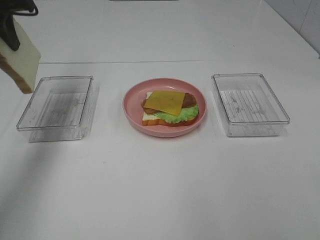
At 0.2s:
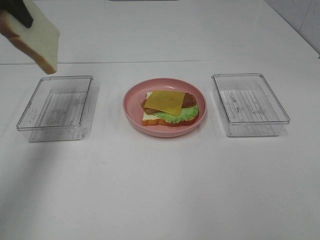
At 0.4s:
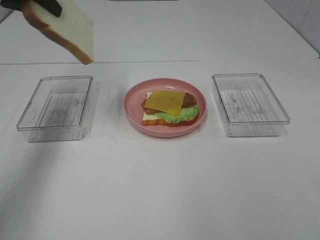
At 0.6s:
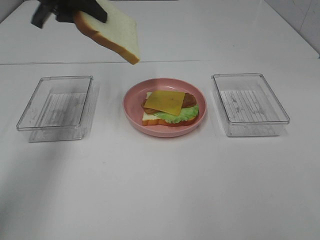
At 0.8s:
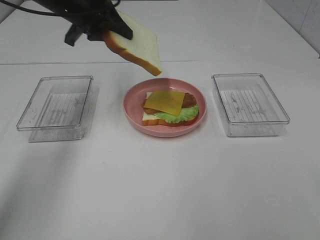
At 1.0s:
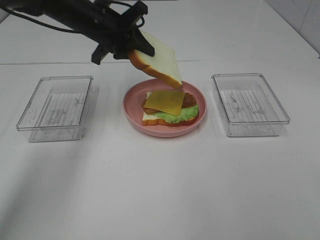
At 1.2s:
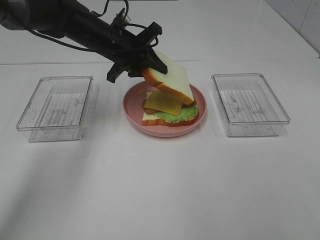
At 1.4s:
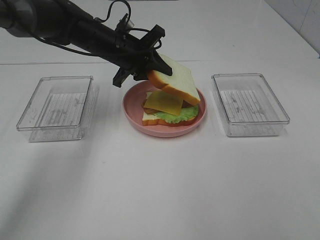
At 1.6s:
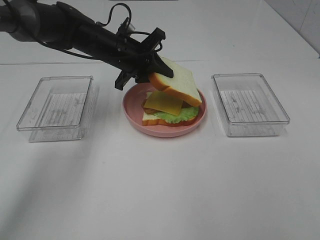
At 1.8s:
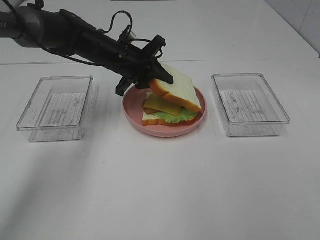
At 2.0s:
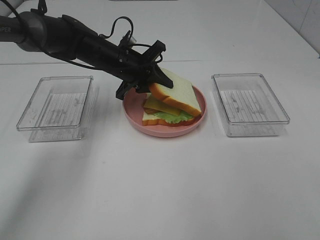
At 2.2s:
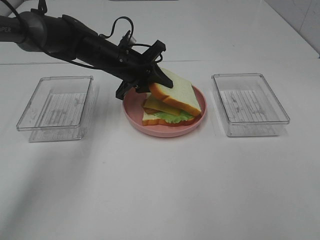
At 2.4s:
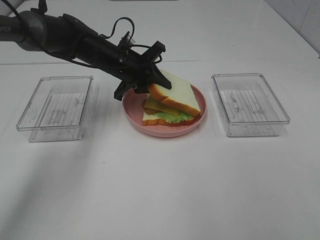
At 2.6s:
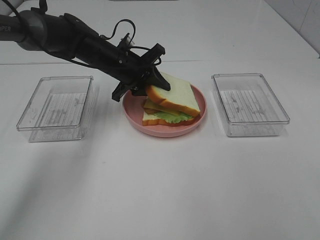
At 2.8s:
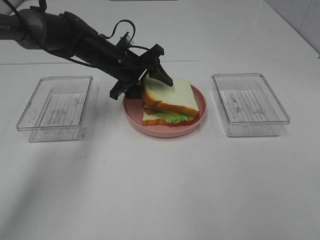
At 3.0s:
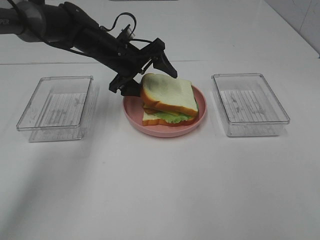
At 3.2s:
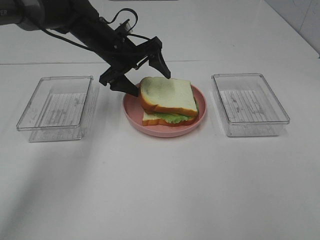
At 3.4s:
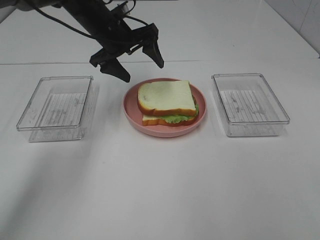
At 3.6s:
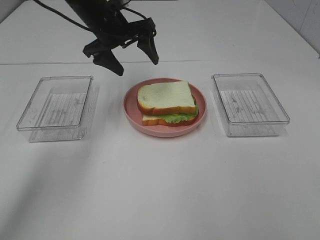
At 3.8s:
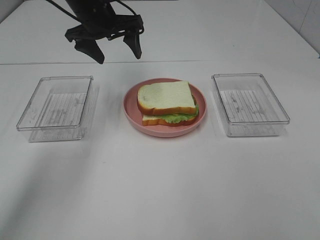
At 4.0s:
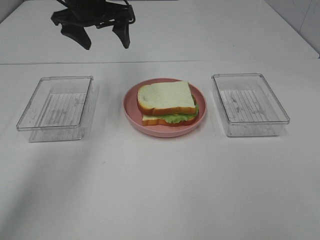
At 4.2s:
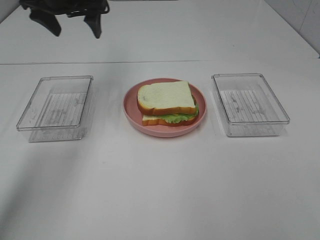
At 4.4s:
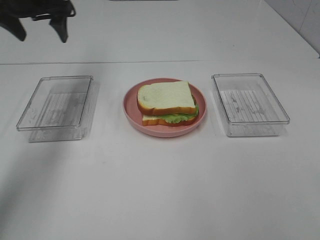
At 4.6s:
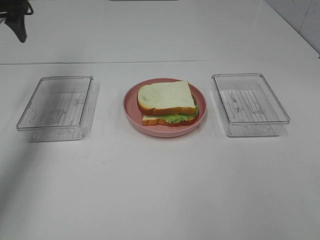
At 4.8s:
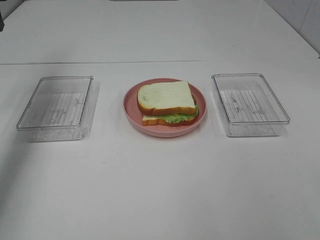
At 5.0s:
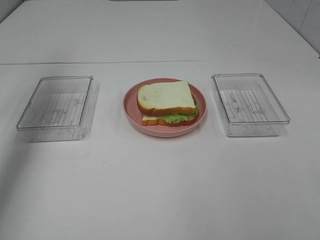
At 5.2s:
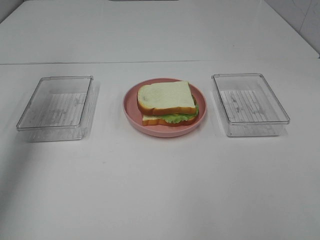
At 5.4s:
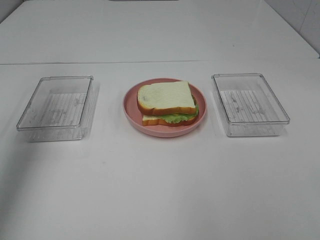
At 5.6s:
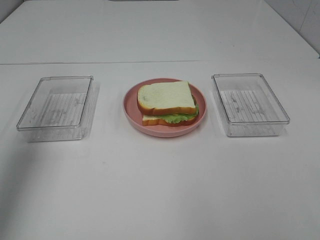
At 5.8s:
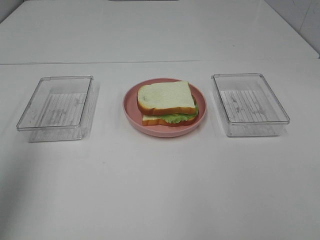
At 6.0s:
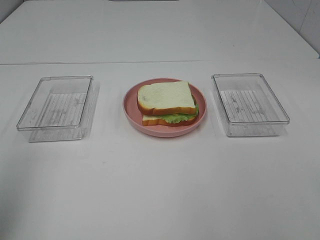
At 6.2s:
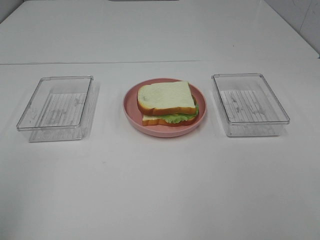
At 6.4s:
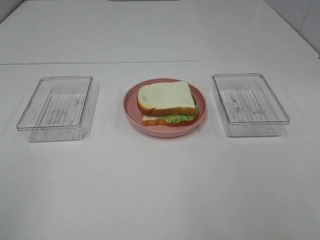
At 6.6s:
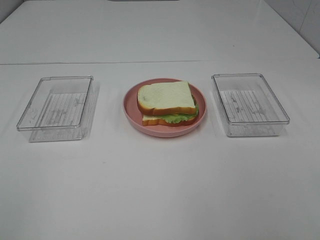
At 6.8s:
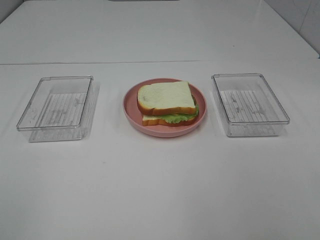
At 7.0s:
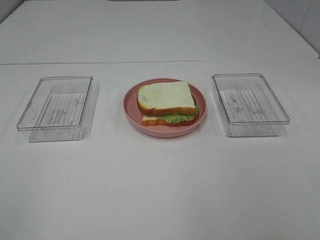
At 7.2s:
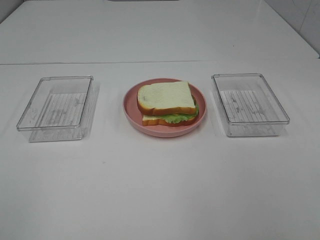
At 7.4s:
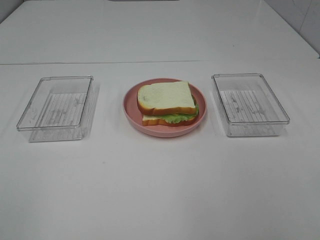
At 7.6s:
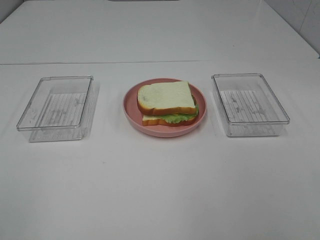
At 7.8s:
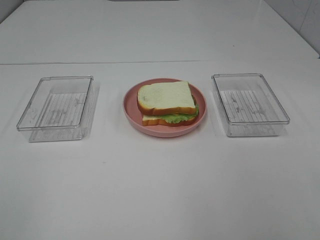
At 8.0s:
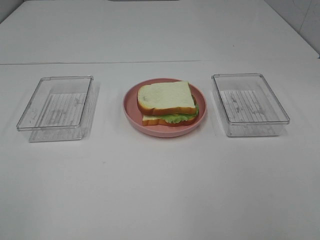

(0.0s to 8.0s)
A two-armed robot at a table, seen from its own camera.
Task of the whole recording: Make sandwiches.
Step, 0.0s - 3.2s: Left hand:place the bread slice on the cheese slice.
0.0s - 1.6s: The left gripper is displaced to the right and downward by some 25 cm.
1.6s - 3.2s: The left gripper opens up.
3.2s - 4.8s: The left gripper is displaced to the left and upward by approximately 30 cm.
4.8s - 6.4s: The left gripper goes some 40 cm backward.

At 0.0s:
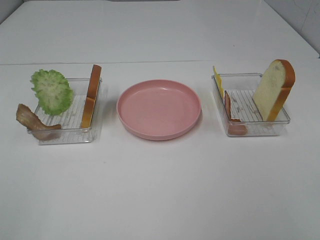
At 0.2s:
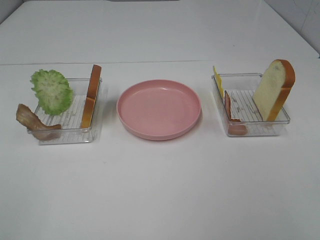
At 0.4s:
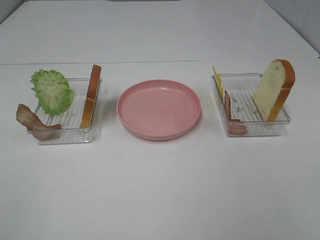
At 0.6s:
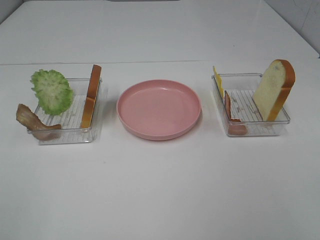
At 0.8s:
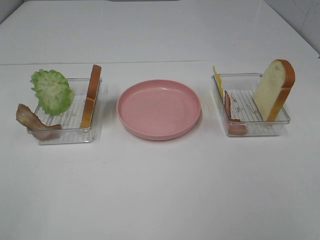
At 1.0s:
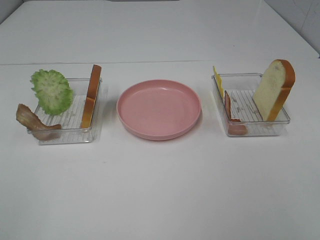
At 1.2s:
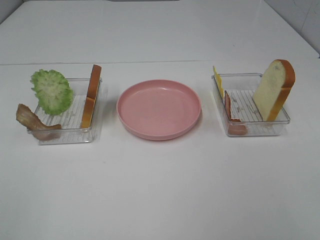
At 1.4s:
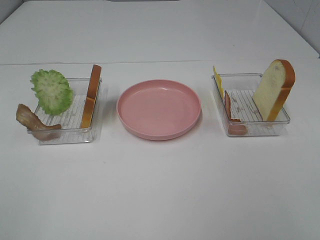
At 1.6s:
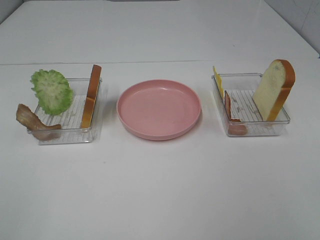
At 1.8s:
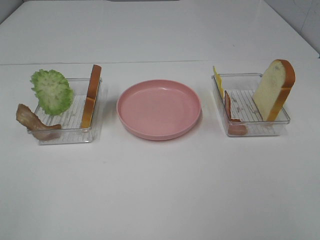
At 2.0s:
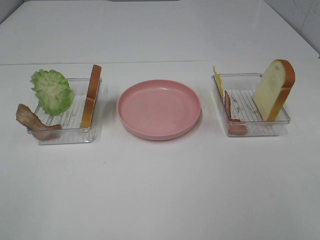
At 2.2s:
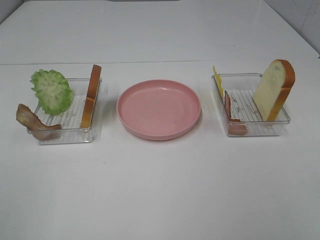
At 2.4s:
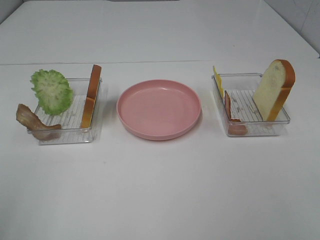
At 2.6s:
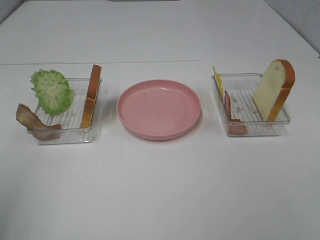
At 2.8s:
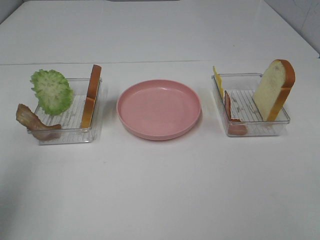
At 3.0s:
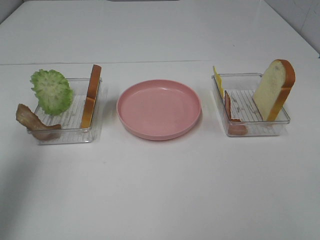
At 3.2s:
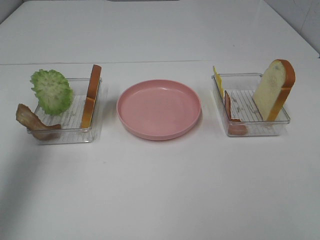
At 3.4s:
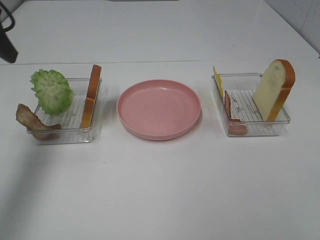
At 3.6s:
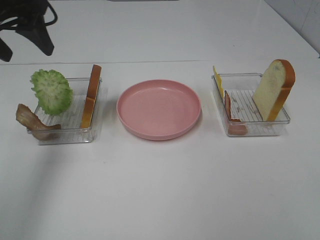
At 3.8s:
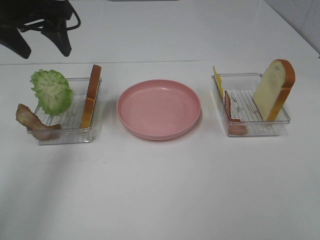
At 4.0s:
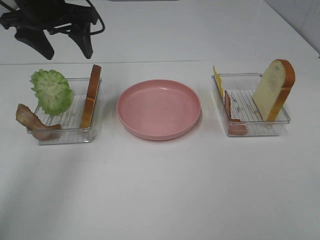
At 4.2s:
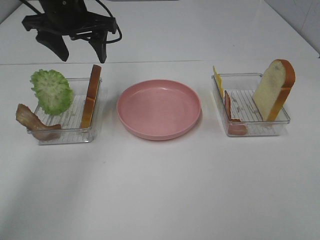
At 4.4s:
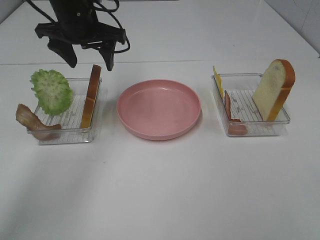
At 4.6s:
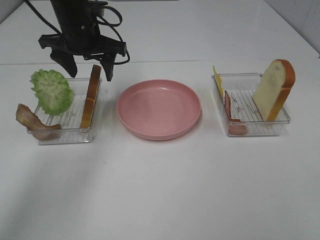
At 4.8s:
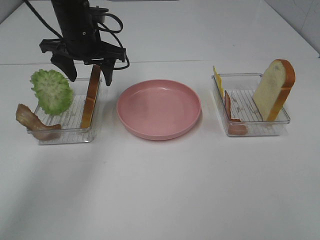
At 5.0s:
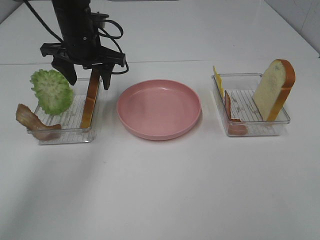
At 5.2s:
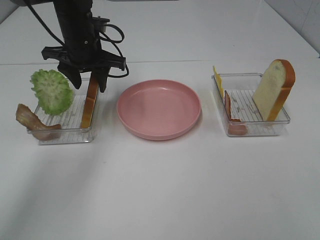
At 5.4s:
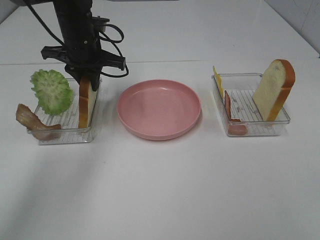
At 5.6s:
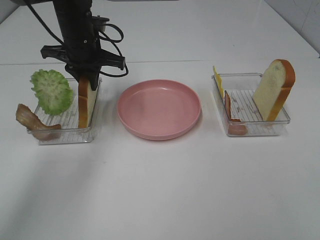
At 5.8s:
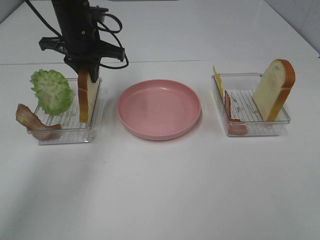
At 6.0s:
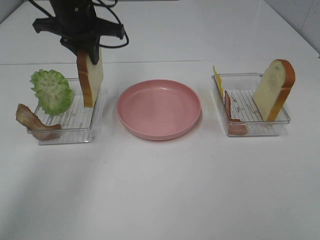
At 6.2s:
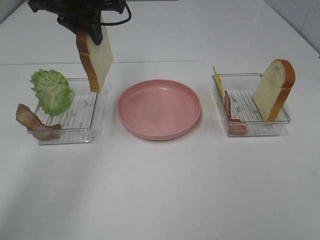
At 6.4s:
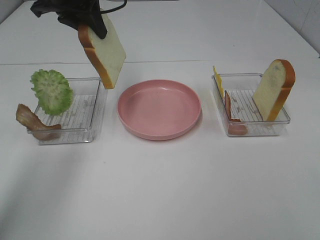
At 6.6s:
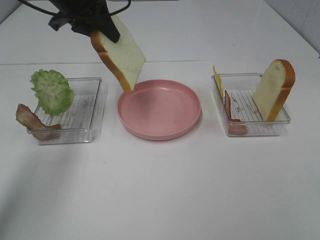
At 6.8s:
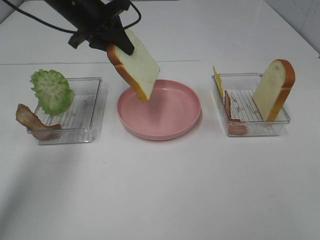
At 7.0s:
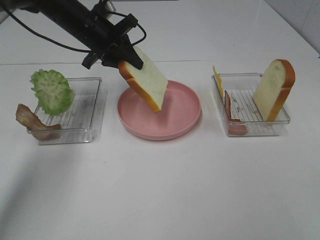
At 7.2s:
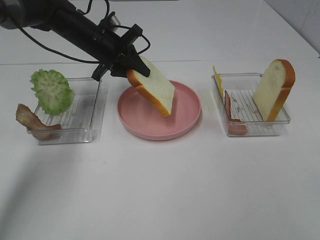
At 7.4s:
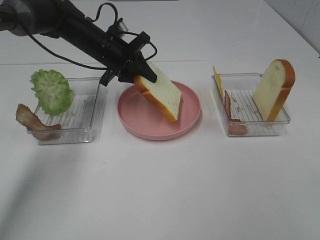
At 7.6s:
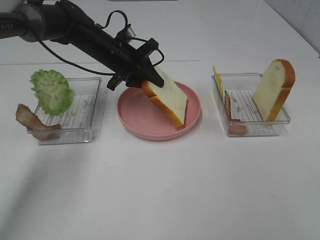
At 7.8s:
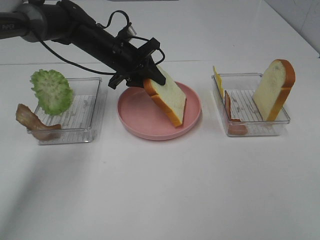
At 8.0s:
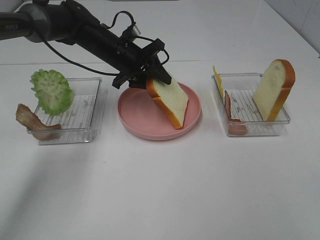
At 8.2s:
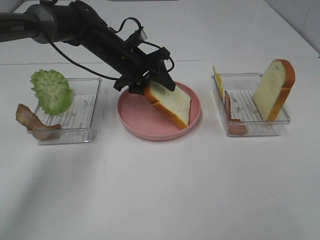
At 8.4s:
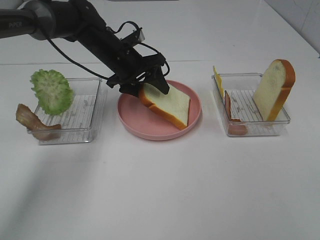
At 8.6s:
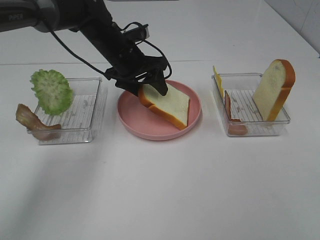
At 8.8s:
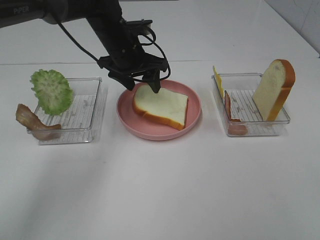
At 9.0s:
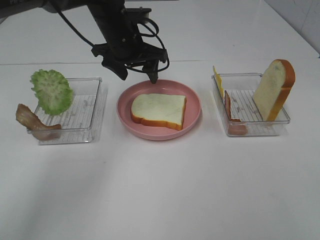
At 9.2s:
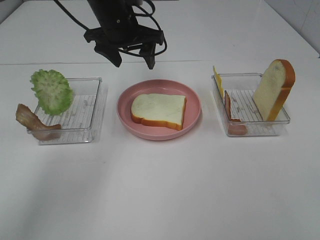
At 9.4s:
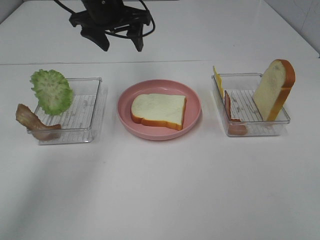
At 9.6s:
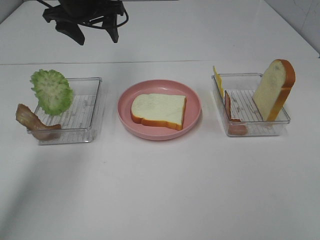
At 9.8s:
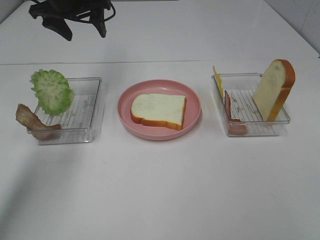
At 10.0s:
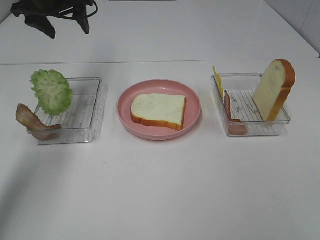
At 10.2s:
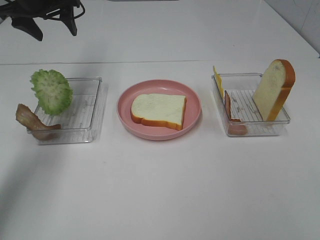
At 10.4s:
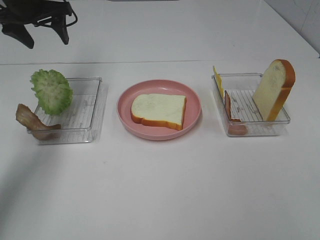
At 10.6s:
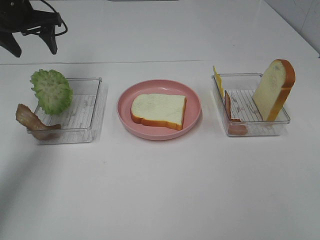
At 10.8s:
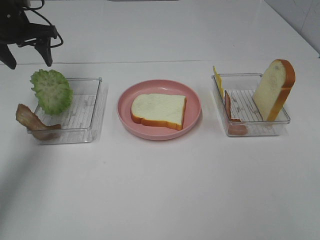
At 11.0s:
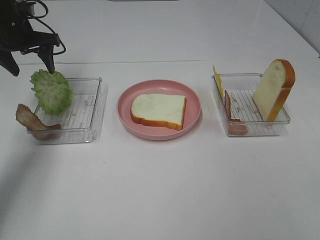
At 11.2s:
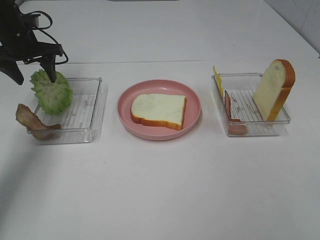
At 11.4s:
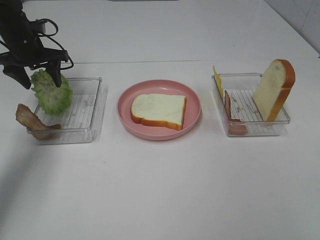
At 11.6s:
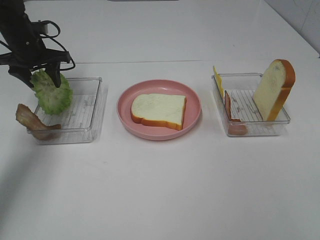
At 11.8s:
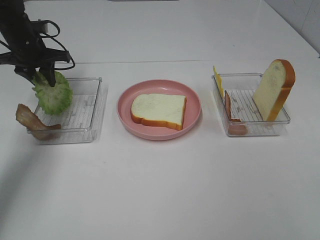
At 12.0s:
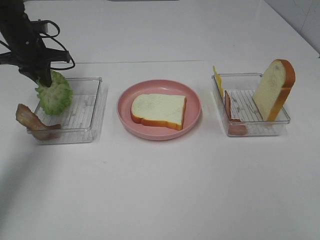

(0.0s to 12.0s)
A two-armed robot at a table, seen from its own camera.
Task of the whole recording: Make sandwiches.
Step, 0.0s - 5.6s: Left hand:grab the bread slice.
Step, 5.8s - 8.8s: Left hand:place the bread slice on the plate.
0.0s - 1.6s: Both grippers stay put.
1.6s - 3.0s: The left gripper moves forward, roughly 25 cm.
3.0s - 4.4s: The left gripper is displaced forward and to the right by roughly 25 cm.
4.4s - 6.0s: The left gripper closes.
6.0s - 7.6s: The left gripper goes about 10 cm downward.
7.6s - 9.0s: The left gripper is displaced upward by roughly 5 cm, and opens.
9.0s - 10.4s: The left gripper shifts roughly 20 cm to the left.
10.4s - 12.0s: The left gripper moves downward, about 10 cm, and closes.

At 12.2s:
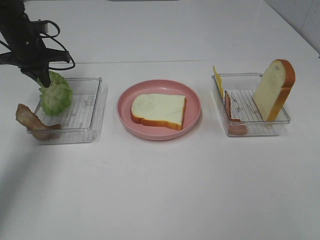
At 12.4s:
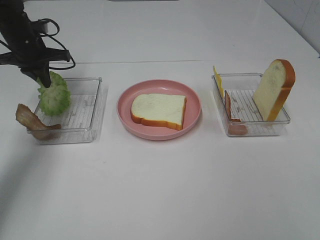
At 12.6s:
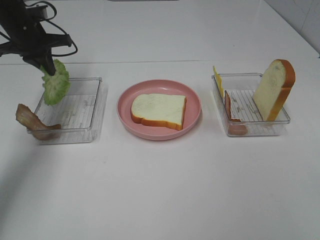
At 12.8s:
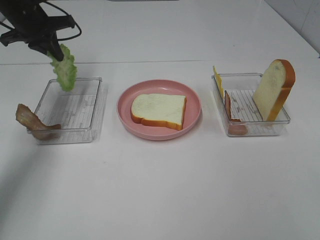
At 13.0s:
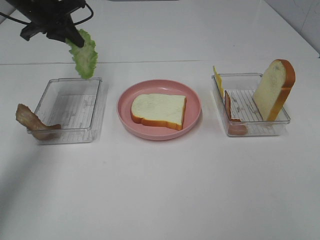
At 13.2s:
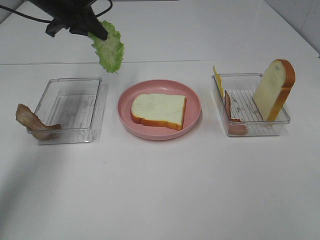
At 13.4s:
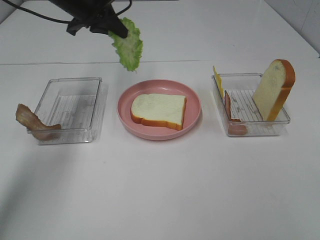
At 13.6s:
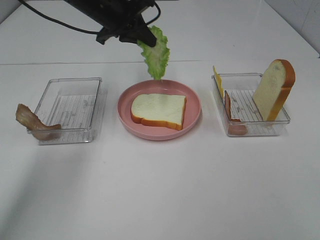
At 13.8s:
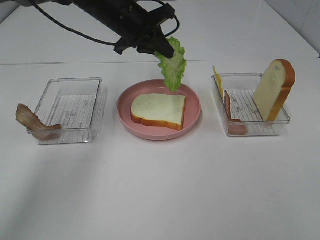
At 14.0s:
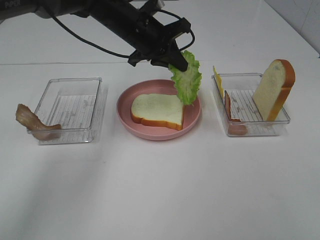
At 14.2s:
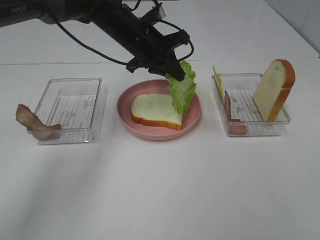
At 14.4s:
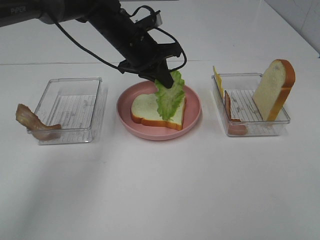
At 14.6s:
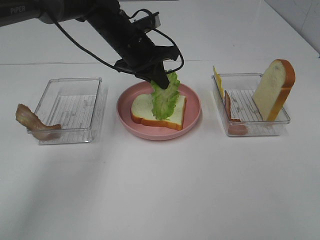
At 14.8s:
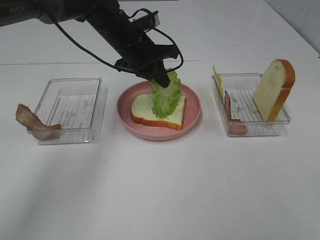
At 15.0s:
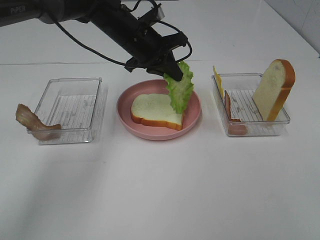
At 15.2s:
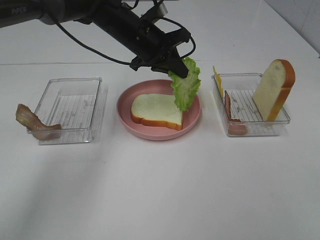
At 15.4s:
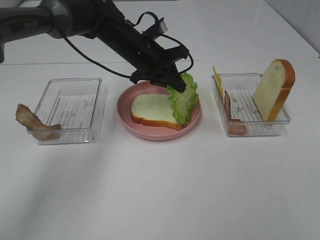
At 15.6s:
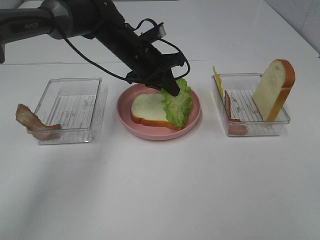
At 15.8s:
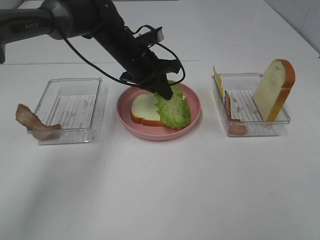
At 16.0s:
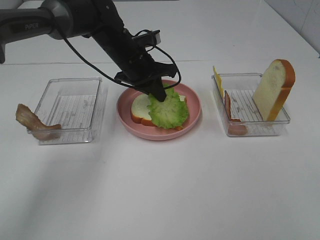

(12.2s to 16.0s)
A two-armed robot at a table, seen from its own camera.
Task of the whole recording: Make sandwiches.
12.2s - 13.4s: The left gripper shifts roughly 15 cm to the right and upward.
13.4s - 14.8s: The left gripper goes approximately 10 cm to the right and downward.
14.8s - 16.0s: The grippers stay close to where they were, moving slightly.
